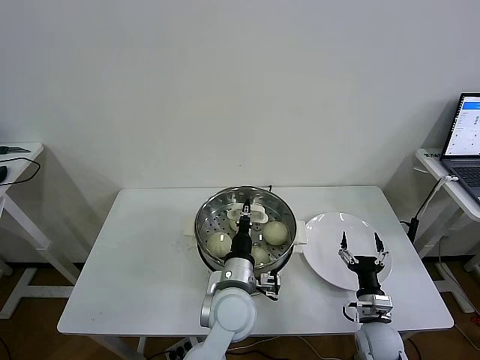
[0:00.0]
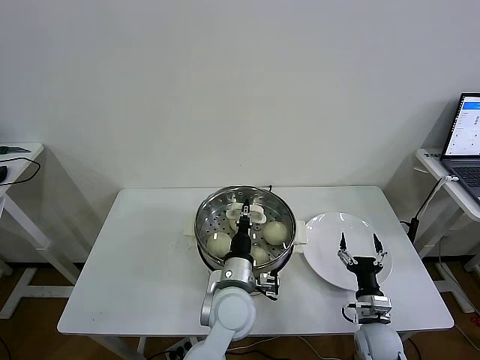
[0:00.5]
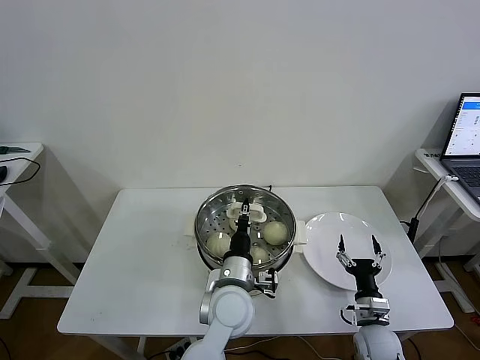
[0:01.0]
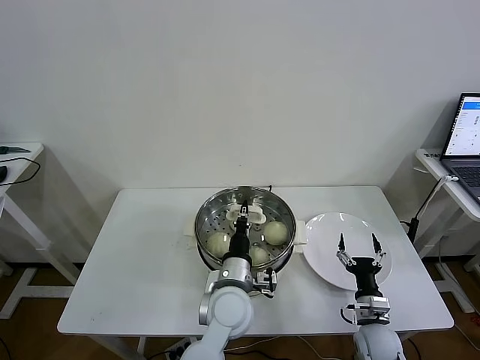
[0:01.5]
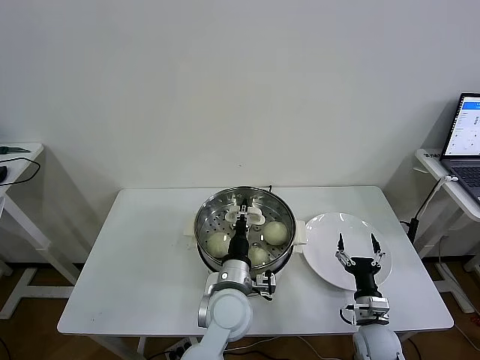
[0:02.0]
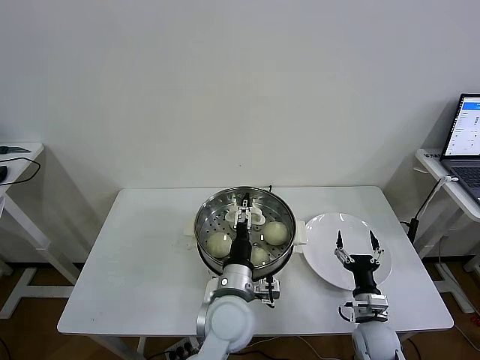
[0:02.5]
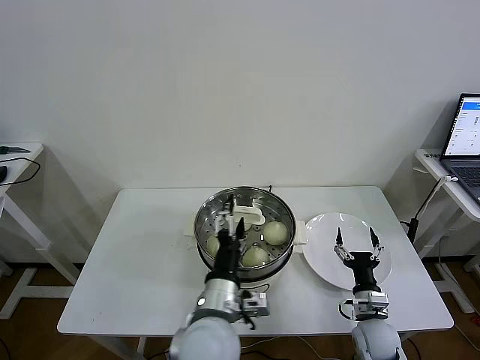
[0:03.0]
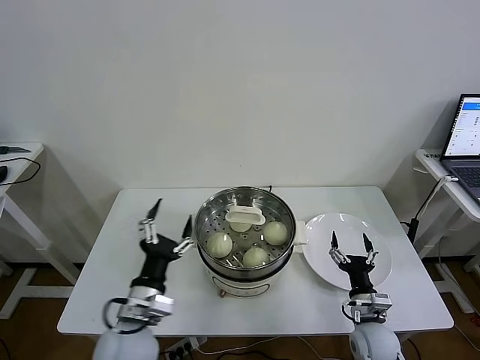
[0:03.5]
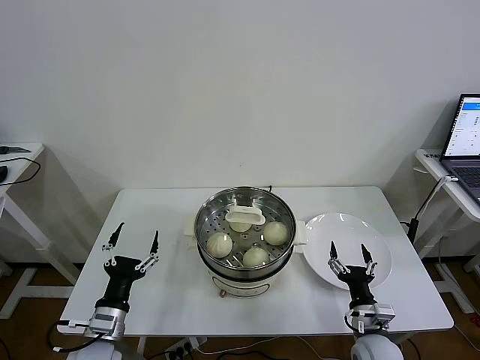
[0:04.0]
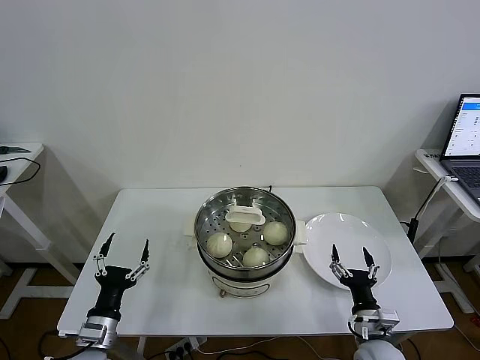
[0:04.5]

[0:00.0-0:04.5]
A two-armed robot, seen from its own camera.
Task of the whole recording: take steamed baozi put them in steamer then cover it.
Step, 0:00.0 to 0:02.0: Place the pot lid on the steamer with left gripper.
0:00.0 to 0:02.0: The grippers stay close to where they were, moving slightly.
0:02.0 to 0:04.5: The right gripper shifts by about 5 cm. The left gripper heads to the left, covering approximately 30 cm, and opens up.
